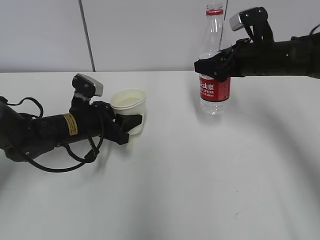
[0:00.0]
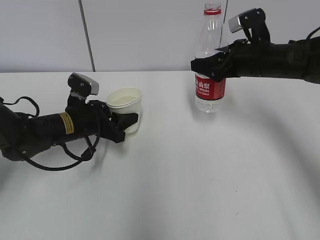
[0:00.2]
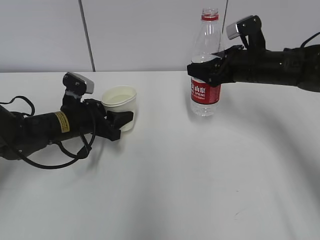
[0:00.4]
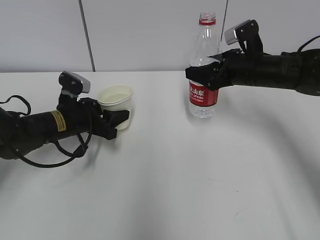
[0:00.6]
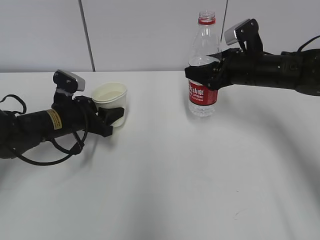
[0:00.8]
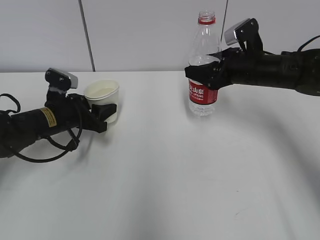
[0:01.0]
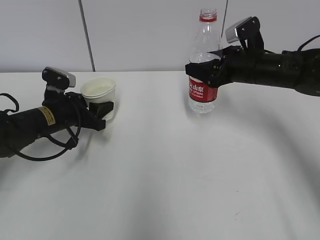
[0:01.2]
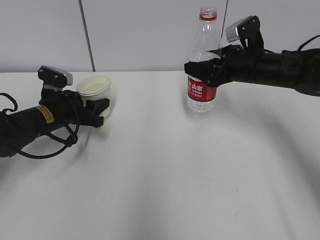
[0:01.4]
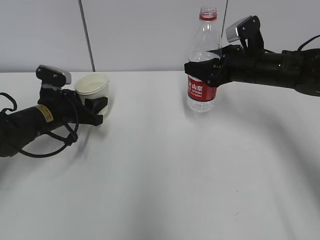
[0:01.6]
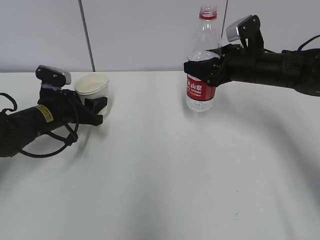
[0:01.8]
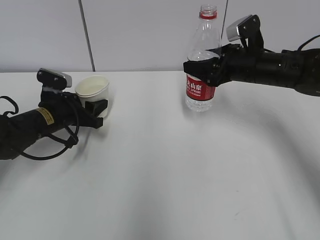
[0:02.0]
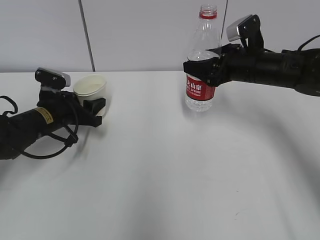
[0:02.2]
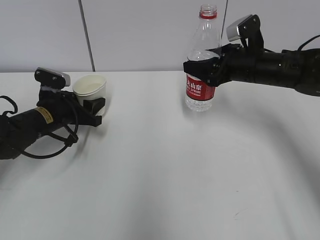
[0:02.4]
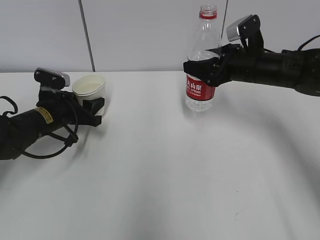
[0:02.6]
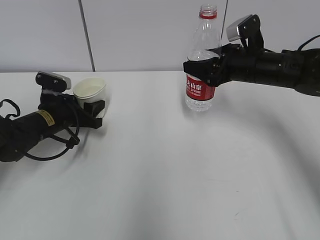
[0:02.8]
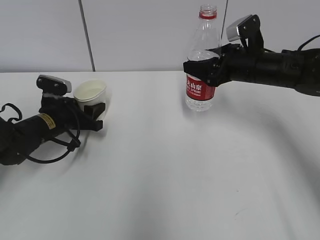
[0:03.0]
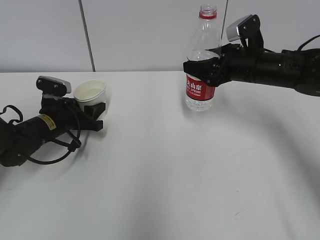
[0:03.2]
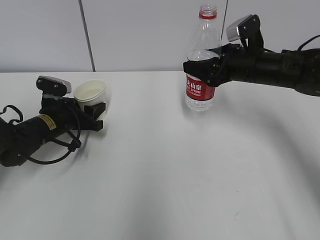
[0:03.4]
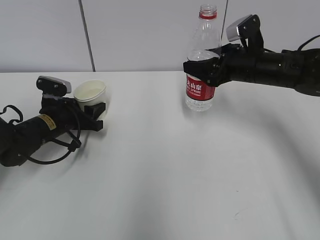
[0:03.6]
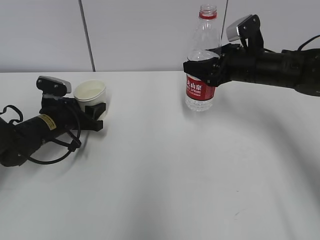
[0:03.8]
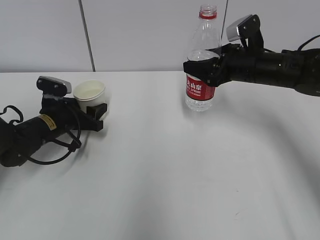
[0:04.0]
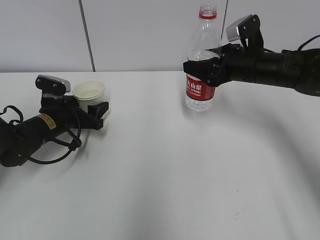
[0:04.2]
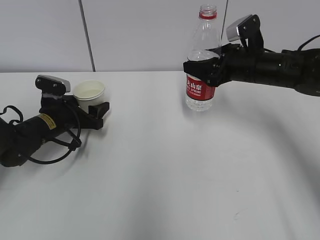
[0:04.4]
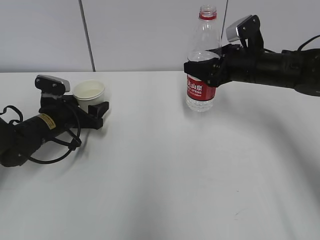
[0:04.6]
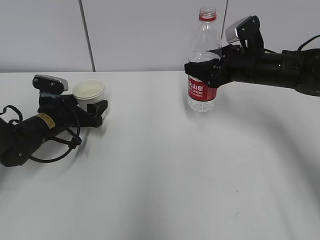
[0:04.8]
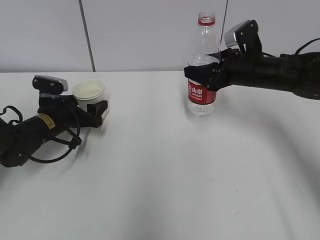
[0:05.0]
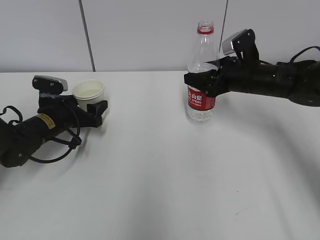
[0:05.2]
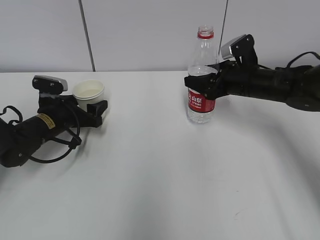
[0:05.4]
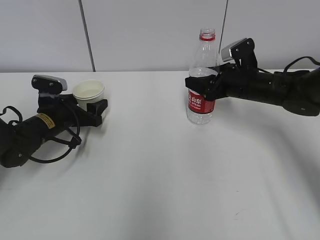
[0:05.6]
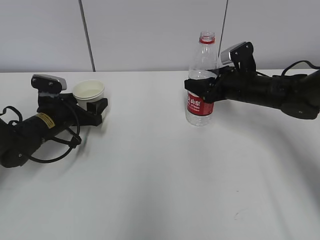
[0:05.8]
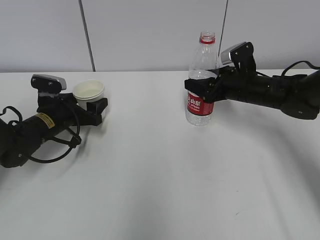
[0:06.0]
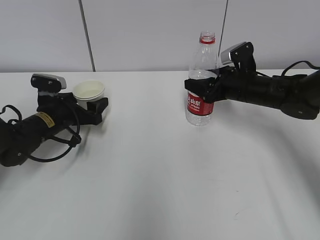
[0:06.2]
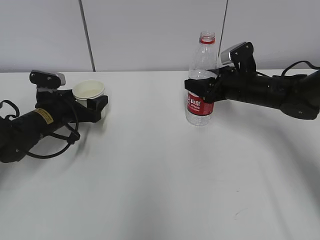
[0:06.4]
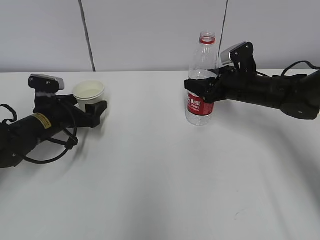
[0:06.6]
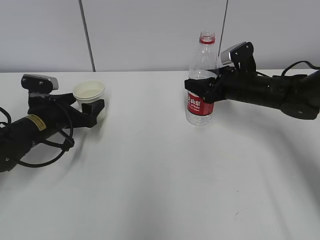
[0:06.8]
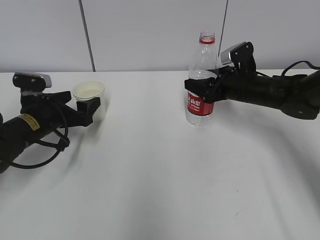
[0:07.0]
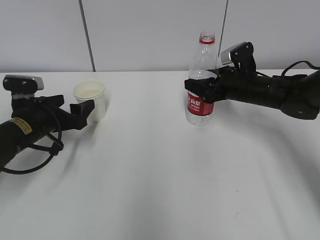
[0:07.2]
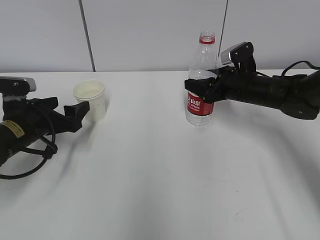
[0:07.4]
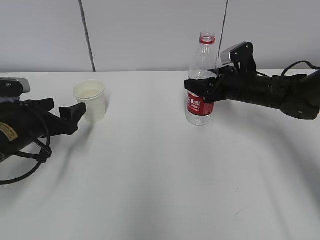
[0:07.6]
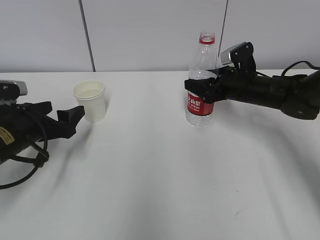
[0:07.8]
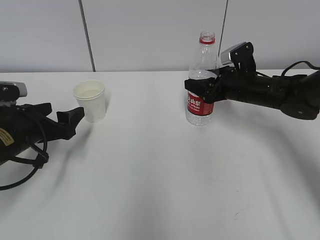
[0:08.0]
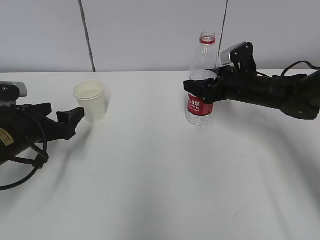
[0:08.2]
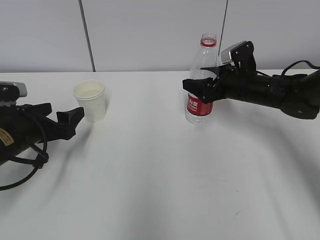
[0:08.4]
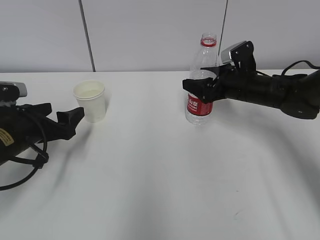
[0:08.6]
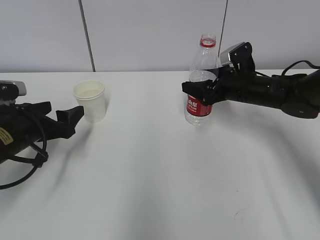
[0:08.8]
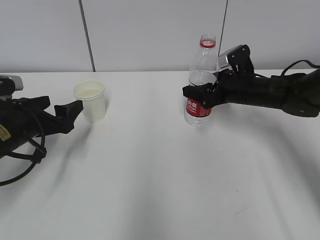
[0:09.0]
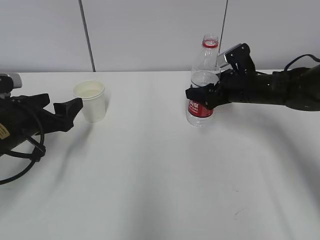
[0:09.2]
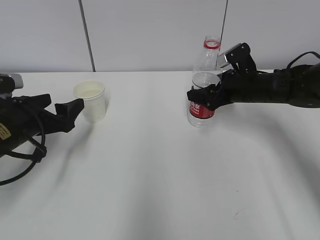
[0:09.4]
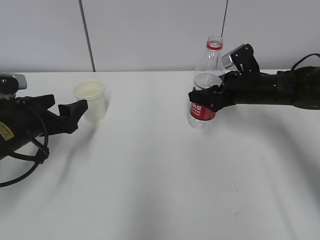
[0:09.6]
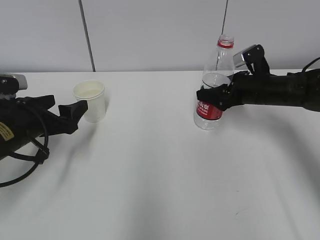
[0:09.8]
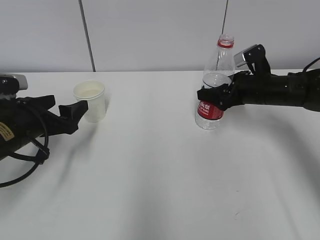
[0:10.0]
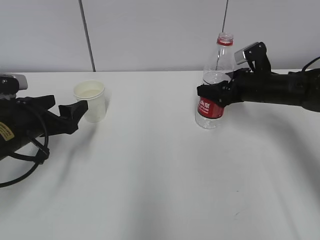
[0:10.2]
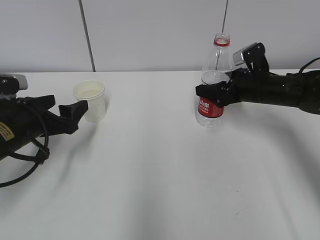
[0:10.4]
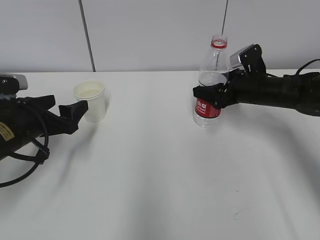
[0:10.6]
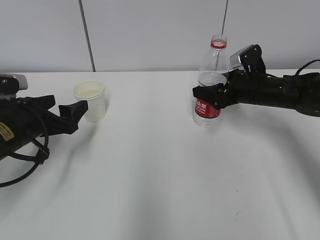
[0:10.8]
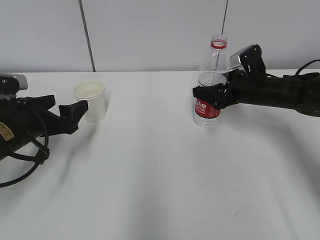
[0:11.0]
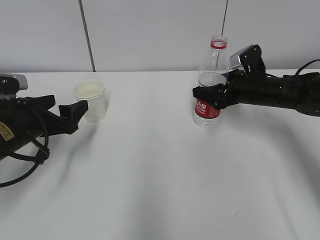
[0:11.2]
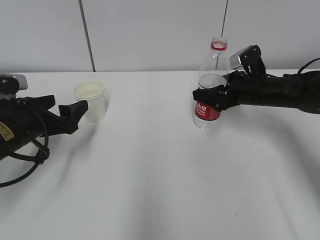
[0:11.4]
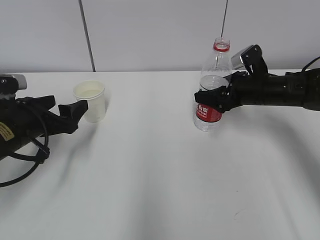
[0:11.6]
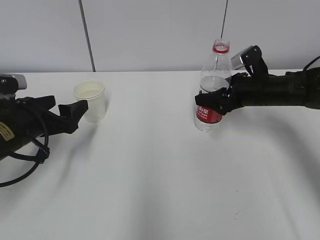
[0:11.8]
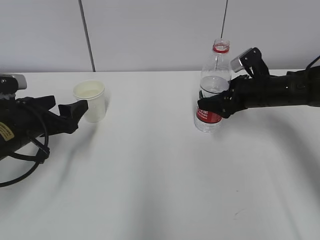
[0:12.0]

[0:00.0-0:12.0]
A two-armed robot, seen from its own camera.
Step, 0:00.0 to 0:05.6: Place the water bottle with the right hand.
0:00.0 to 0:01.6: The left gripper moves to the left, some 5 cm.
0:01.6 to 0:03.0: There are only small adjustments of the grippers.
0:03.0 to 0:04.4: The left gripper opens.
0:04.4 to 0:06.0: The right gripper travels downward by some 5 cm.
0:06.0 to 0:07.6: The left gripper shifts roughly 10 cm backward.
0:07.6 to 0:09.0: The right gripper opens up.
0:09.0 to 0:10.4: There are only small adjustments of the grippers.
0:10.4 to 0:12.0: The right gripper opens its fingers.

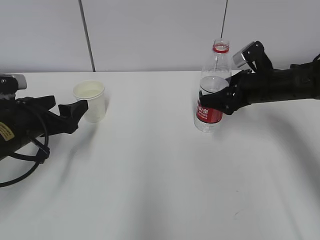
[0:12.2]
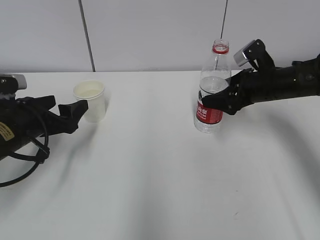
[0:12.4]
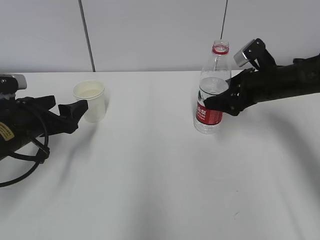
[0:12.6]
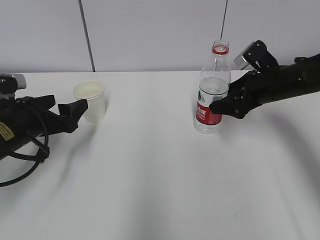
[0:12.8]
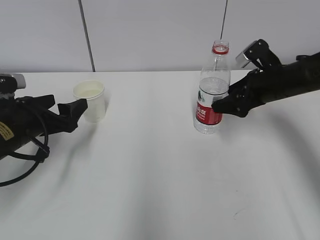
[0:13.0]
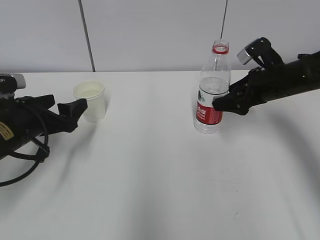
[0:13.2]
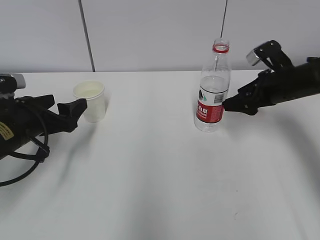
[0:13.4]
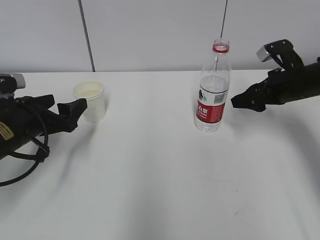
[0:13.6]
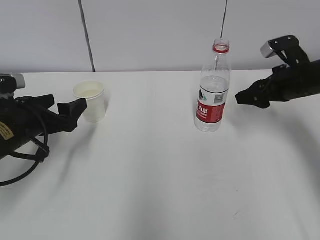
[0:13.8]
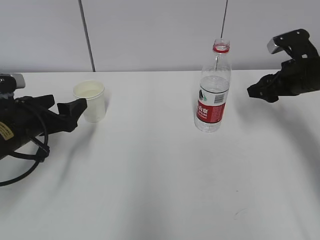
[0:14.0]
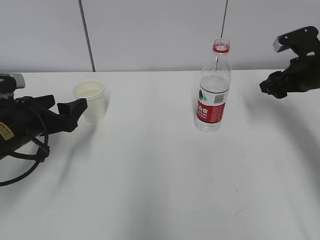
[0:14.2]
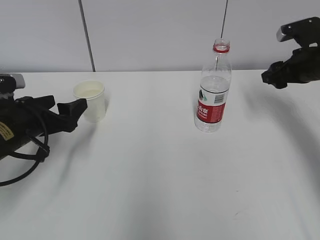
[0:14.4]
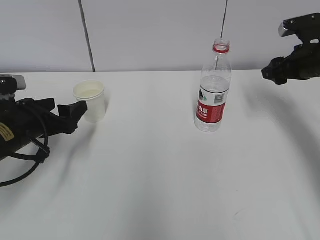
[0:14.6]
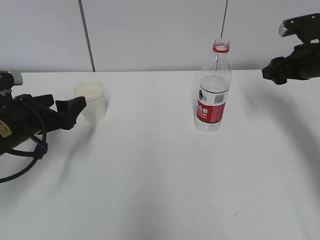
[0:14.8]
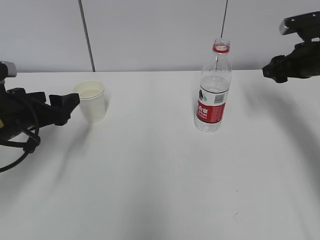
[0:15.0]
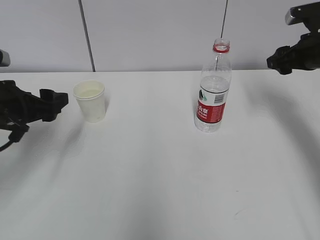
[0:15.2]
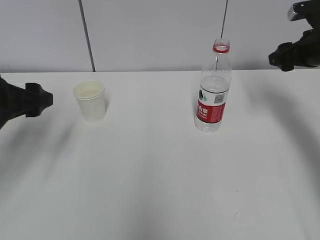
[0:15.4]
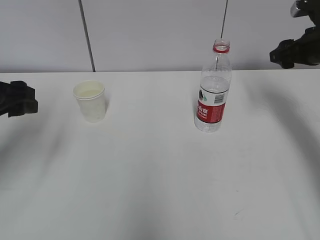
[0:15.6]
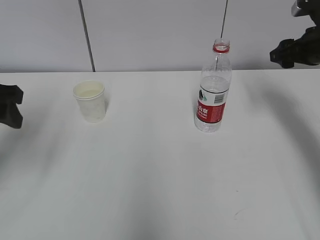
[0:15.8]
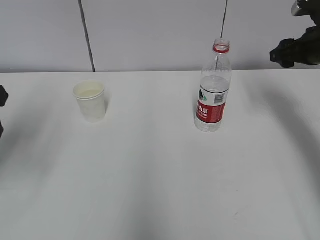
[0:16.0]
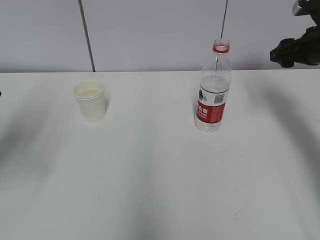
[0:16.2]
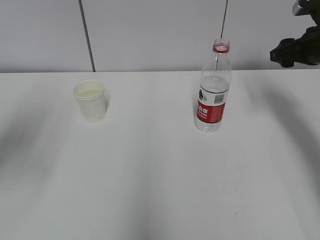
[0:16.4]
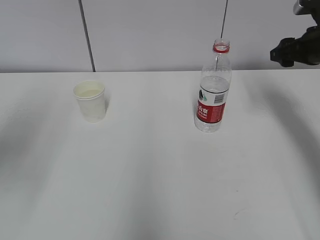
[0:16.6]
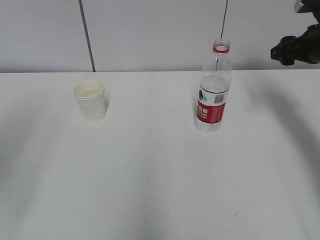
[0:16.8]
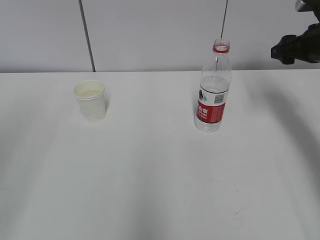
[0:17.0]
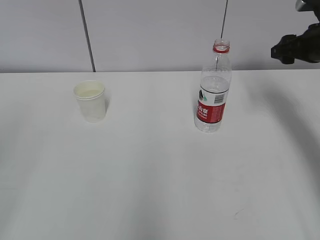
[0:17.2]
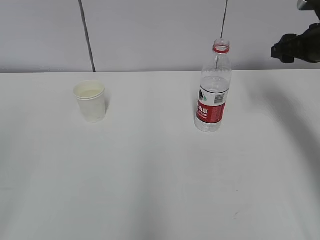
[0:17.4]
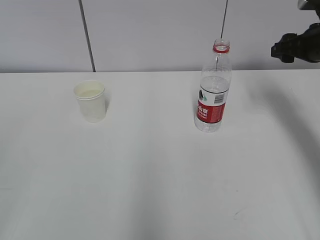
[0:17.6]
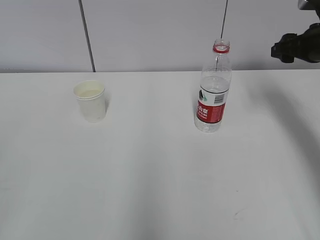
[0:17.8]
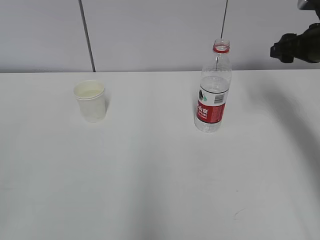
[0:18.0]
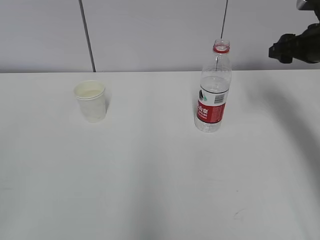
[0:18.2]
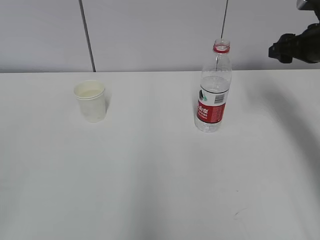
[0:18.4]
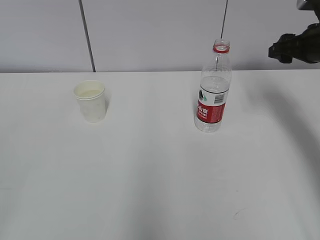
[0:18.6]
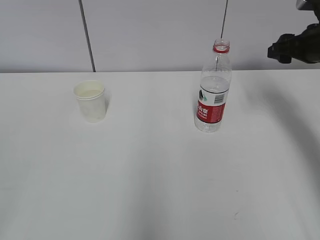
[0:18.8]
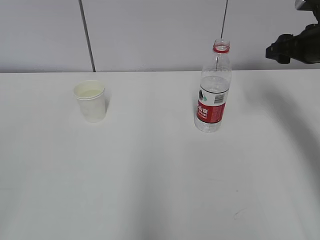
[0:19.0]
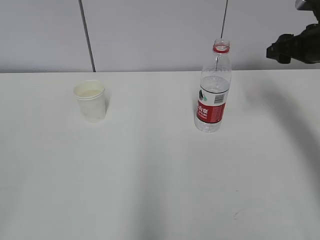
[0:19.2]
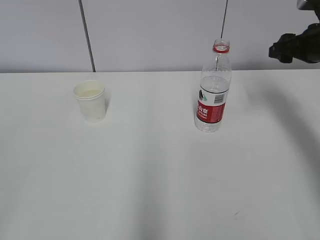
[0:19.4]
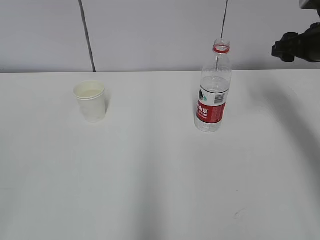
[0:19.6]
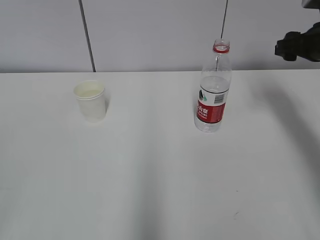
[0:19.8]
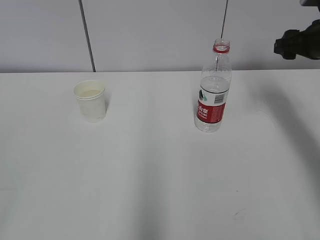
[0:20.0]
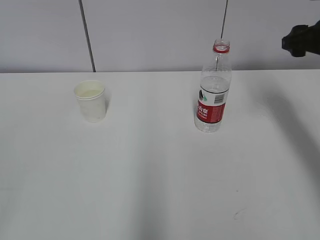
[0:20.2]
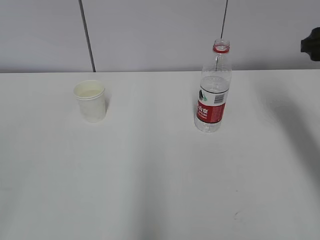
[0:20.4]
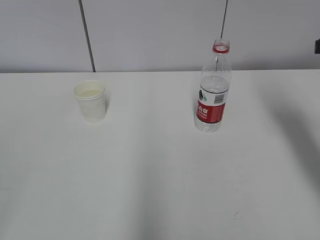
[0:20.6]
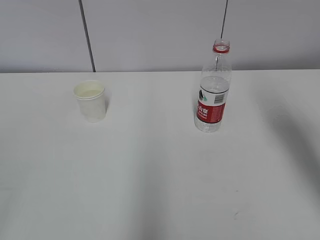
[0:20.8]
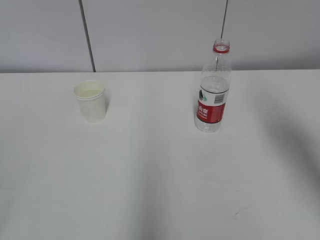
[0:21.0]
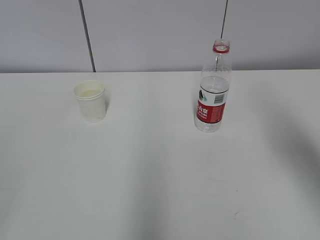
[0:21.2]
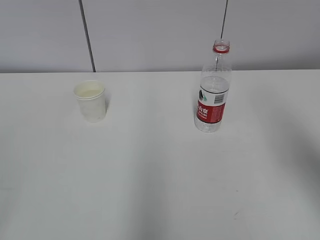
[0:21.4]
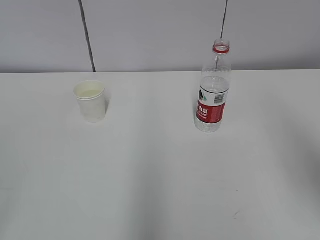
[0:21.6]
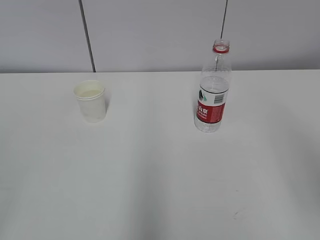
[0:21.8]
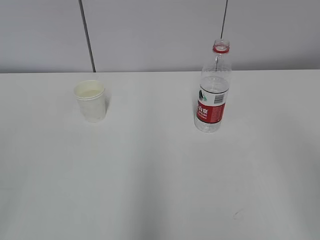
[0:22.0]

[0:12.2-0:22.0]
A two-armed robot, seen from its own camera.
0:12.2 to 0:13.6: The right gripper closes.
0:13.6 to 0:15.0: The right gripper shifts by some 5 cm.
0:15.0 to 0:16.4: The left gripper heads upward and backward, covering about 15 cm, and closes its fingers.
0:16.4 to 0:17.8: The left gripper goes approximately 25 cm backward.
0:19.2 to 0:20.6: The right gripper shifts about 10 cm backward.
0:20.6 to 0:22.0: The right gripper is displaced backward by approximately 25 cm.

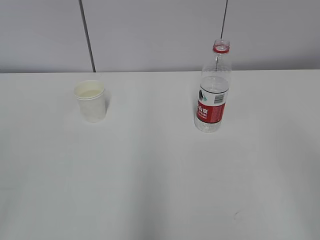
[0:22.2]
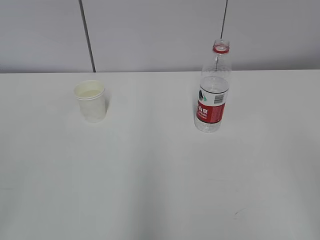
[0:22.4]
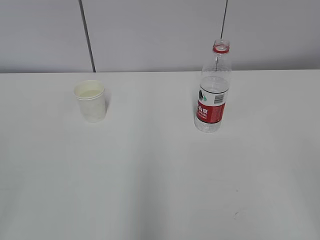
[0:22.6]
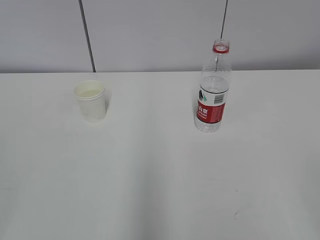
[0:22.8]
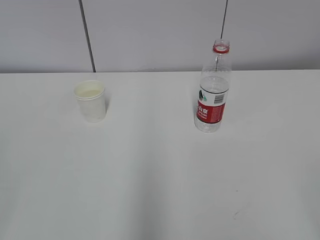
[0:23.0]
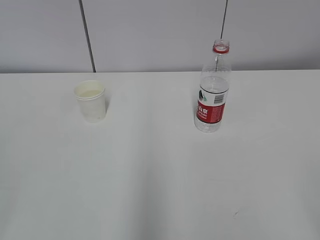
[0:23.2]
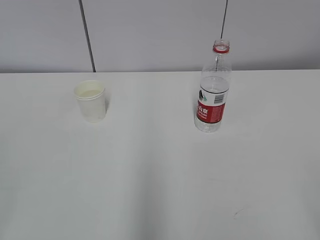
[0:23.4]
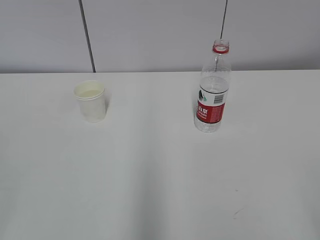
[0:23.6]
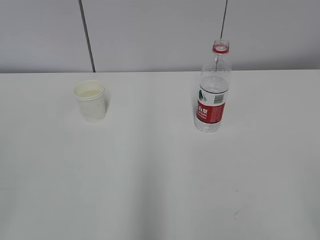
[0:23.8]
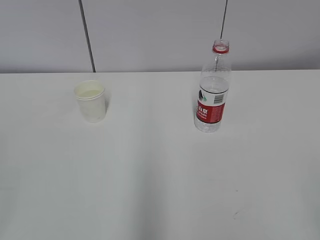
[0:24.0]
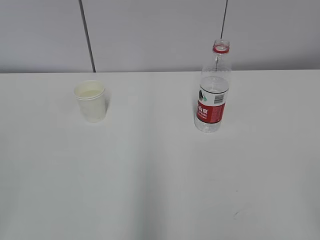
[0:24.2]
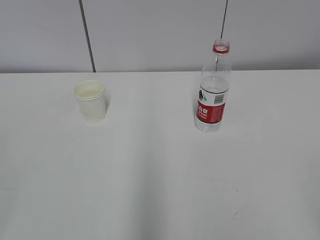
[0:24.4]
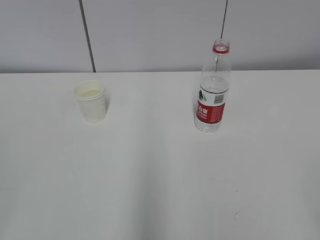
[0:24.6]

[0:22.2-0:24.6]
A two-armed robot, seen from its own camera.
0:23.4 to 0:24.6: Both grippers stay put.
